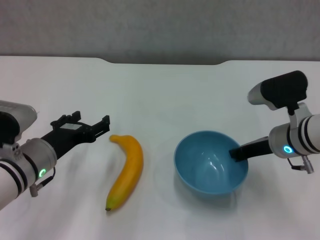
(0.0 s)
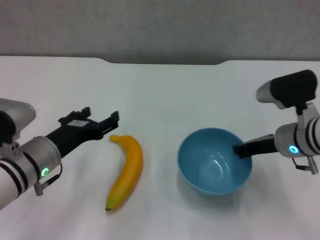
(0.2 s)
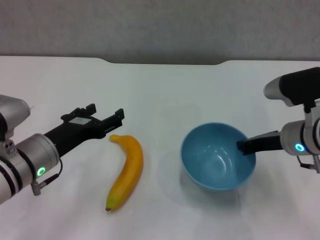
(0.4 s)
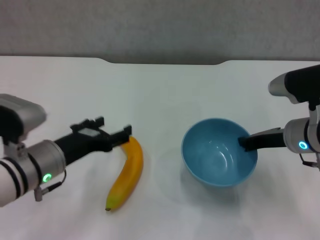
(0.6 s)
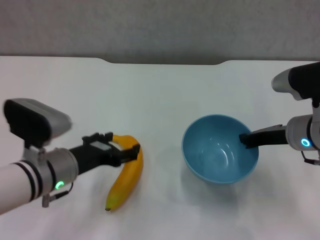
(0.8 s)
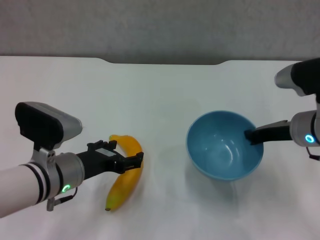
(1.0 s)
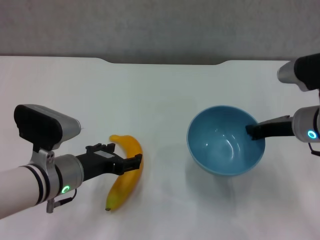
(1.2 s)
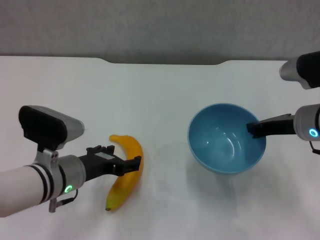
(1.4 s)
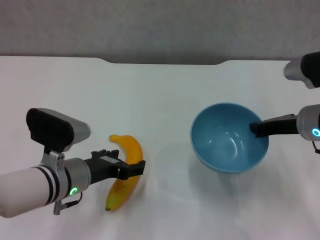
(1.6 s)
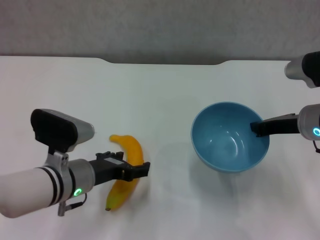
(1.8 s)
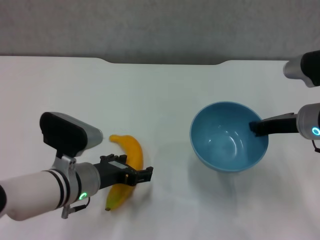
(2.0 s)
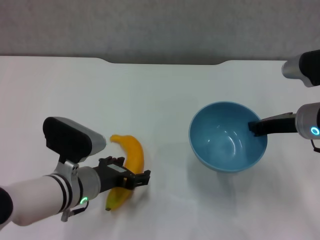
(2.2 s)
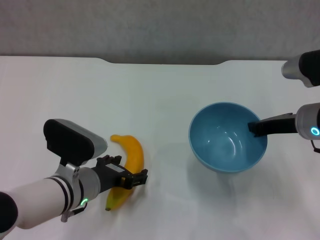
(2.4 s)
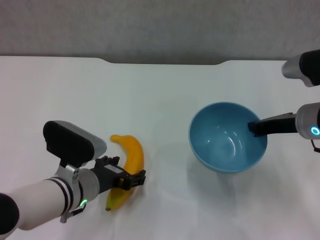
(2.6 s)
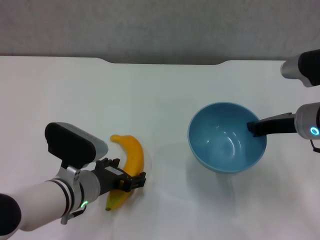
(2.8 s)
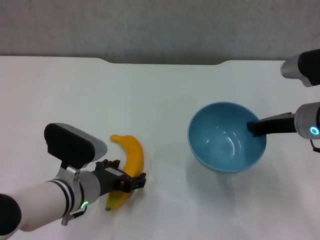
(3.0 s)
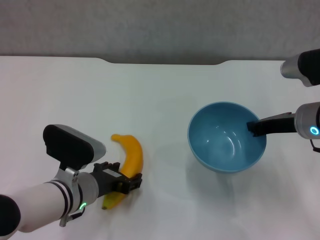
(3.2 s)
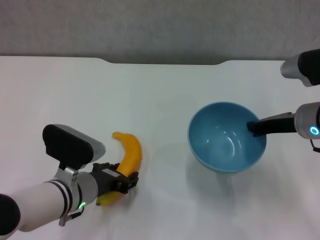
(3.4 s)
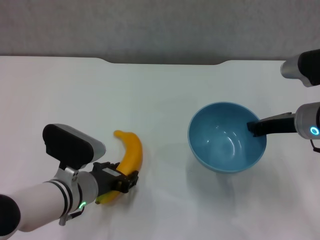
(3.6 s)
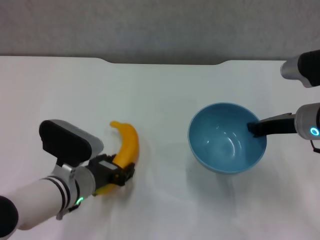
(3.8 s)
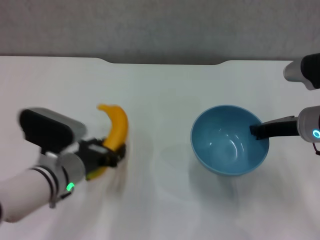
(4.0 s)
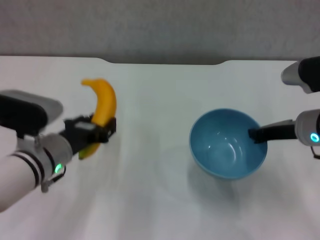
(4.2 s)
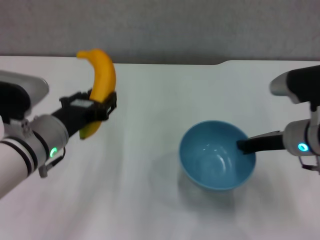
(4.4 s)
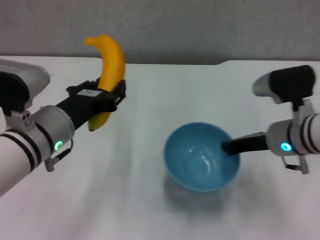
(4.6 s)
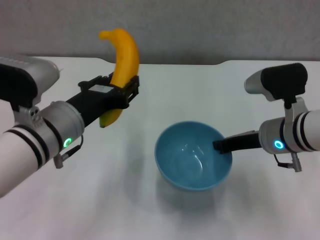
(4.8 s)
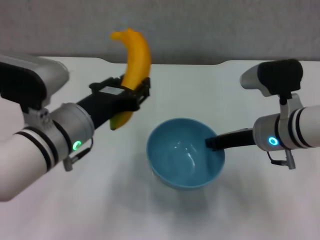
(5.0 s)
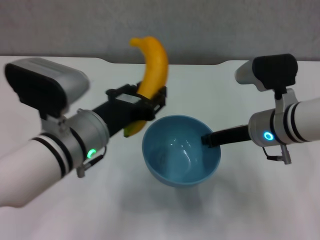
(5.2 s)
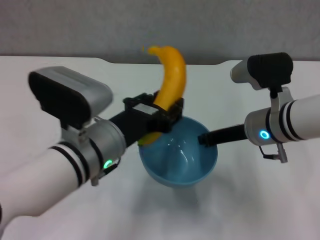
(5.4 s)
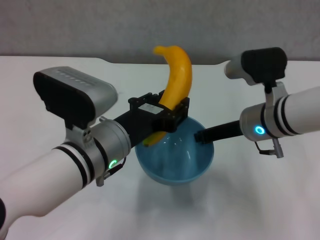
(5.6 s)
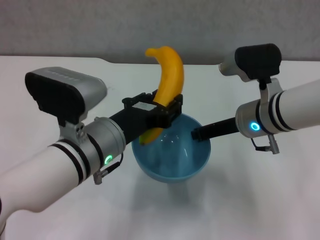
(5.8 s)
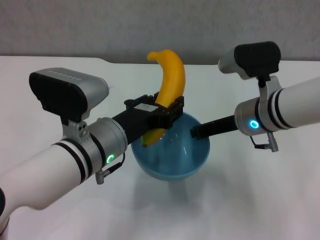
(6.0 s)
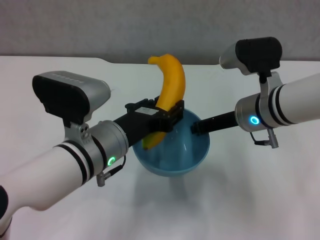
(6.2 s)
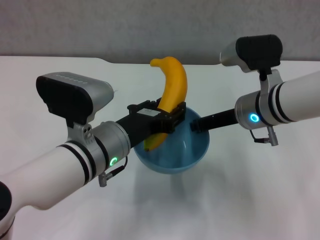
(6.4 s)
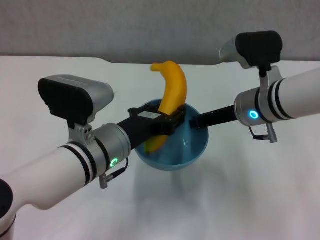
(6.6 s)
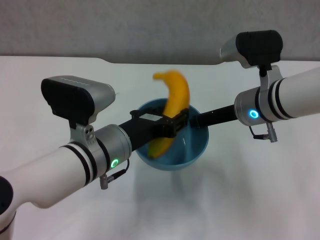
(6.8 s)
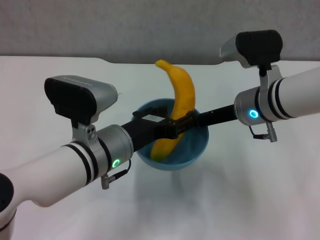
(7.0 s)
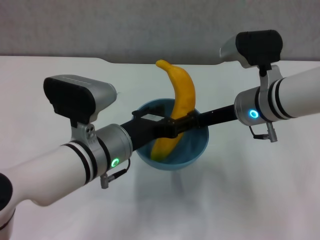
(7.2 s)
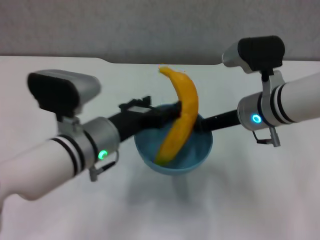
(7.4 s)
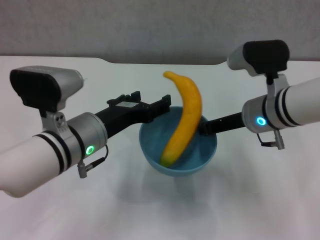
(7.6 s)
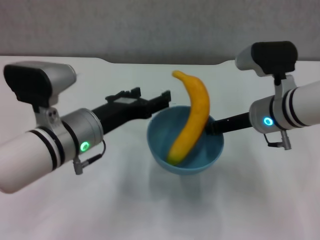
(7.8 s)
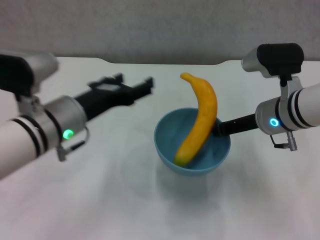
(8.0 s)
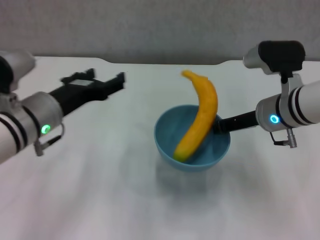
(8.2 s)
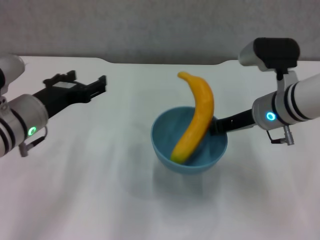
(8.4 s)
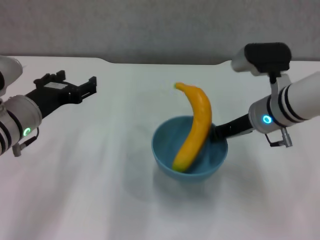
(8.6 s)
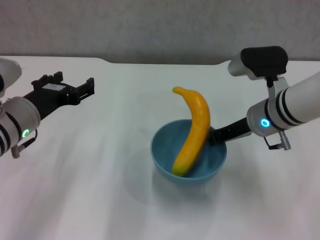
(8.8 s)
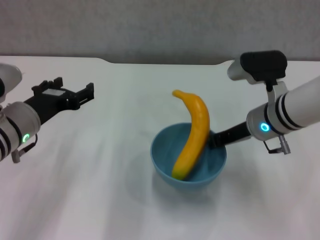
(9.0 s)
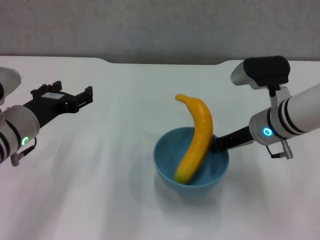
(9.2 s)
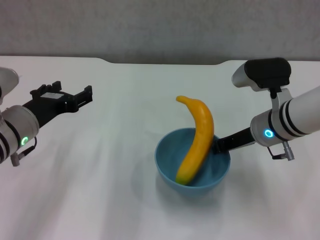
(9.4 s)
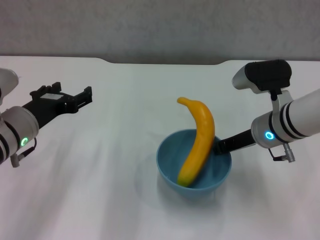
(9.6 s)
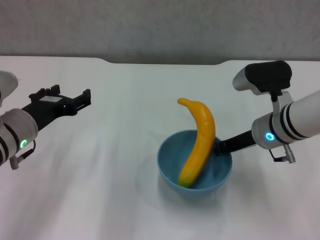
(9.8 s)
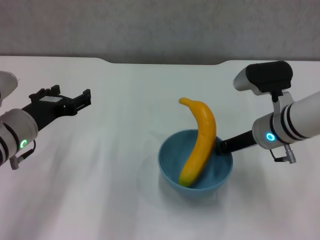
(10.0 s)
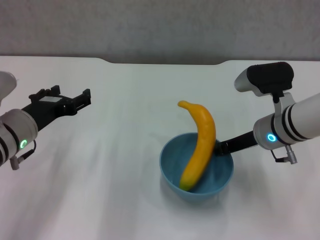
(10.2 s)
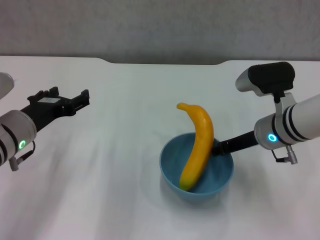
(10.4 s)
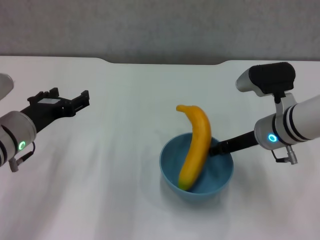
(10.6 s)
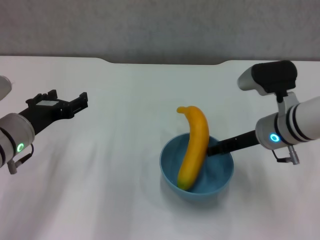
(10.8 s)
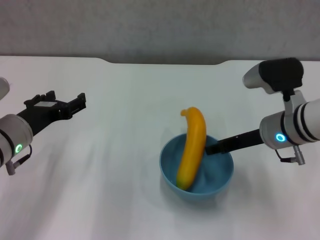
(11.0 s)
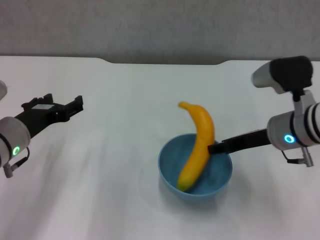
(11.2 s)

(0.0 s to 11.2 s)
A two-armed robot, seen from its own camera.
Step, 0.0 s - 0.6 s: Lift the blue bowl with right gripper.
Step, 0.8 s - 3.2 s: Grasp the banana with left gripper.
Step, 3.6 s - 7.4 s: Place the banana in the blue bowl with left gripper.
0.0 s - 1.6 s: The right gripper changes place by roughly 5 cm.
1.6 s - 3.2 s: There are only small adjustments of the grippers.
3.2 s - 4.8 s: The right gripper shifts by roughly 5 cm. The left gripper travels upward by approximately 10 cm, and closes its fingers.
4.8 s - 6.4 s: The right gripper shifts by approximately 5 cm; the left gripper is displaced to the right by about 5 cm.
6.4 s - 8.0 s: The left gripper shifts some 5 cm to the left, and opens.
8.0 s - 9.6 s: The left gripper is displaced to the left by approximately 5 cm.
9.6 s - 11.2 s: The right gripper opens its fingers.

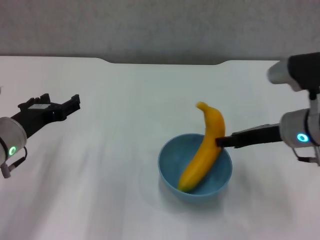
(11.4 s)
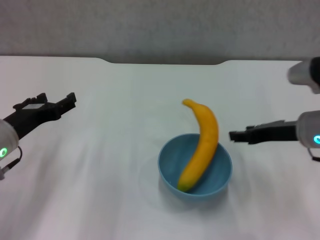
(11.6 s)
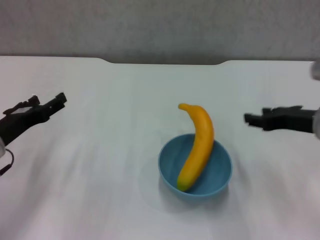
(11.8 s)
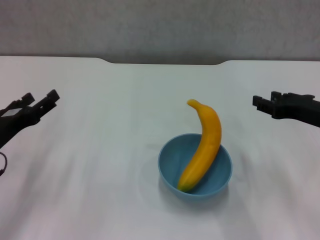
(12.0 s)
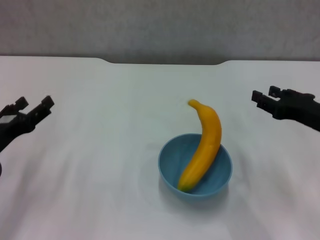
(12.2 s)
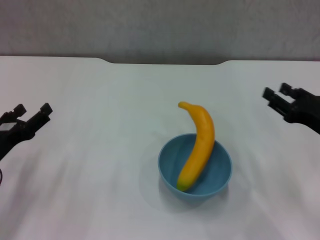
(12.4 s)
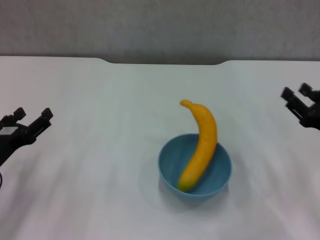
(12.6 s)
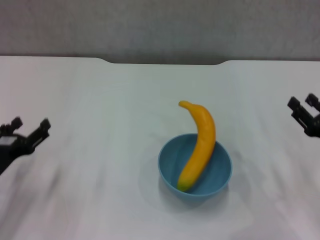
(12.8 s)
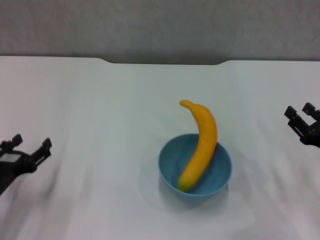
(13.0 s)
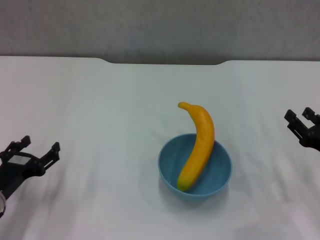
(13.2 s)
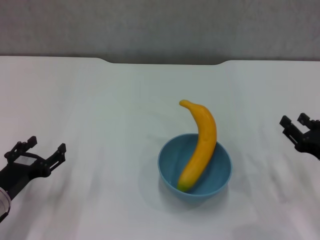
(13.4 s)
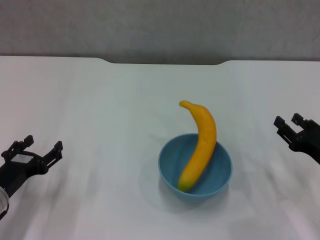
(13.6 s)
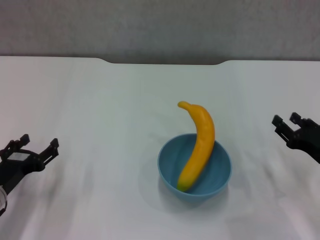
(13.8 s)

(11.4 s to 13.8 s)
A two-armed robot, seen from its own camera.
11.4 s - 12.6 s: The left gripper is displaced to the left by about 5 cm, while the right gripper is displaced to the right and backward by approximately 10 cm.
12.6 s - 13.8 s: The grippers stay close to where they were, moving slightly.
